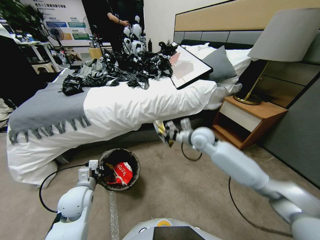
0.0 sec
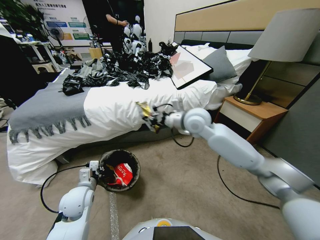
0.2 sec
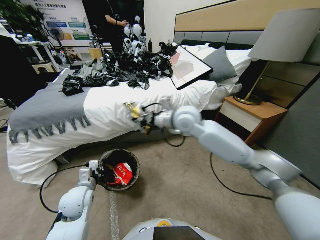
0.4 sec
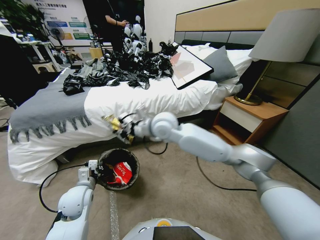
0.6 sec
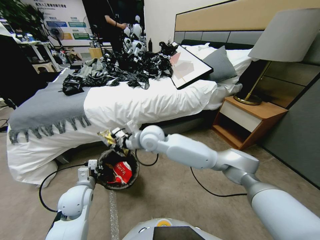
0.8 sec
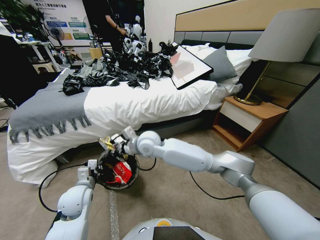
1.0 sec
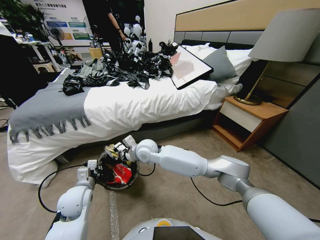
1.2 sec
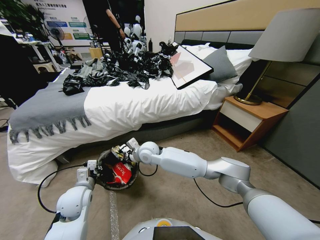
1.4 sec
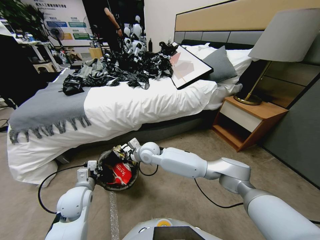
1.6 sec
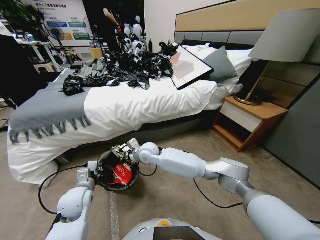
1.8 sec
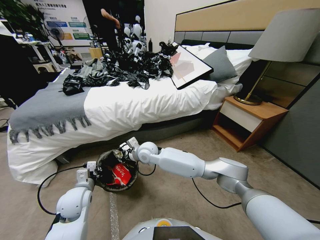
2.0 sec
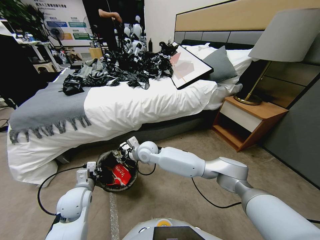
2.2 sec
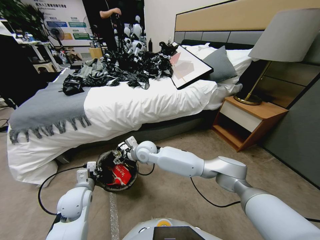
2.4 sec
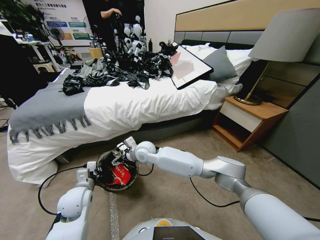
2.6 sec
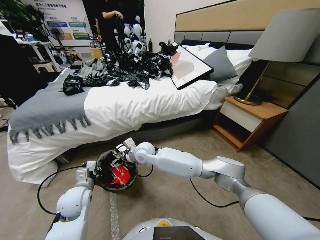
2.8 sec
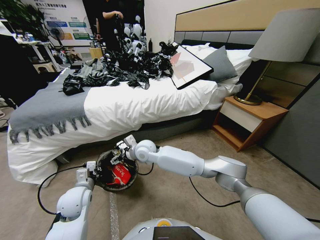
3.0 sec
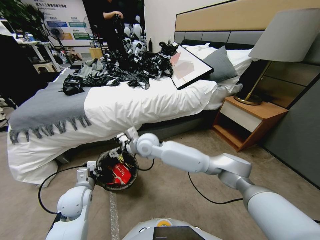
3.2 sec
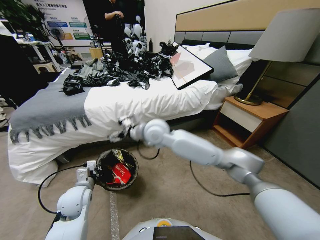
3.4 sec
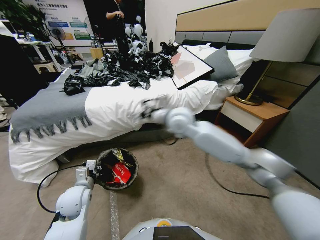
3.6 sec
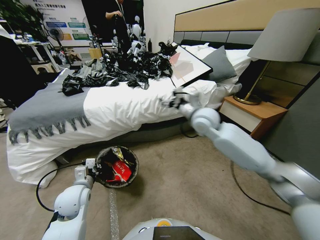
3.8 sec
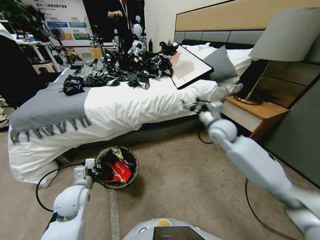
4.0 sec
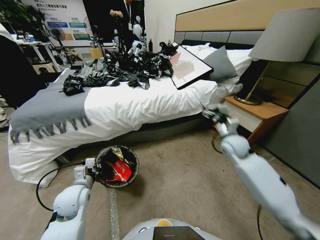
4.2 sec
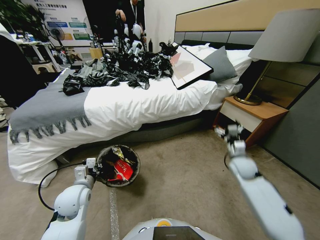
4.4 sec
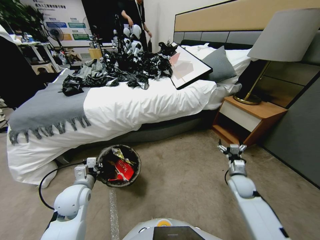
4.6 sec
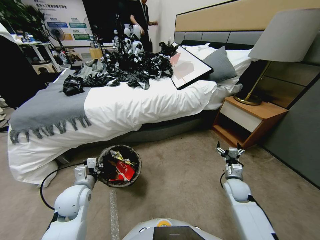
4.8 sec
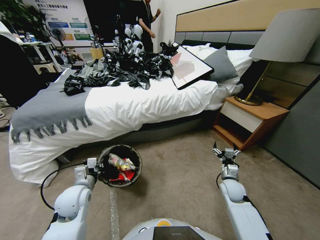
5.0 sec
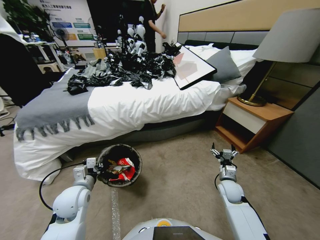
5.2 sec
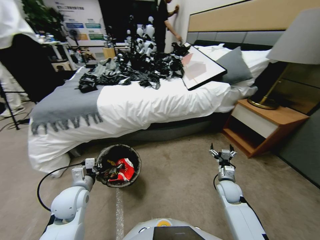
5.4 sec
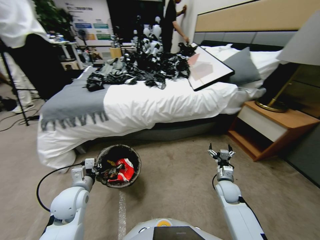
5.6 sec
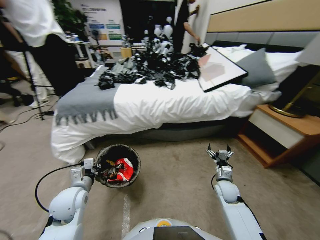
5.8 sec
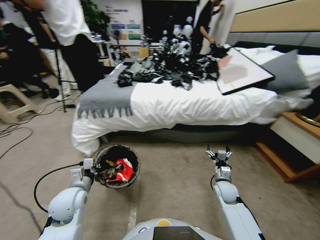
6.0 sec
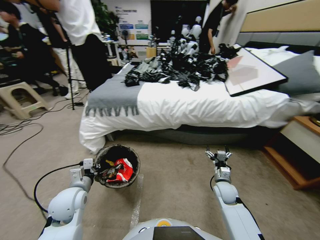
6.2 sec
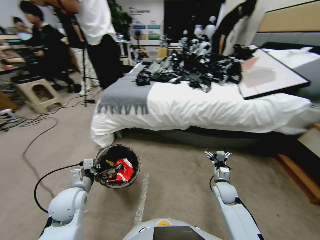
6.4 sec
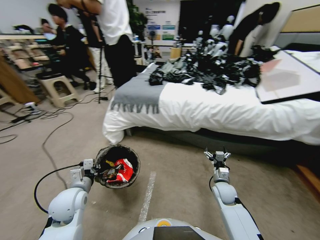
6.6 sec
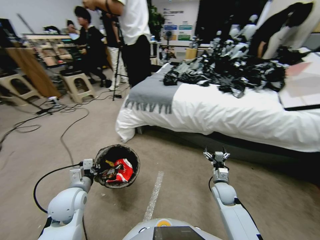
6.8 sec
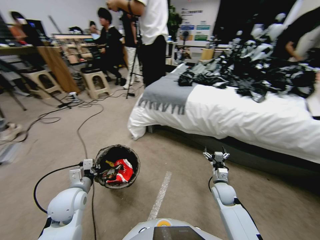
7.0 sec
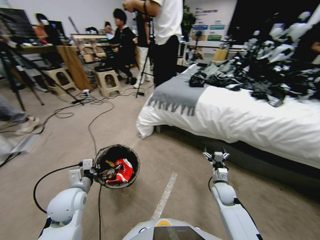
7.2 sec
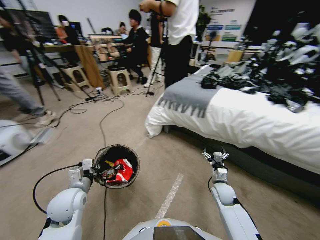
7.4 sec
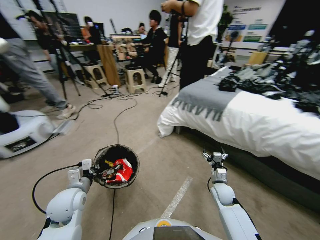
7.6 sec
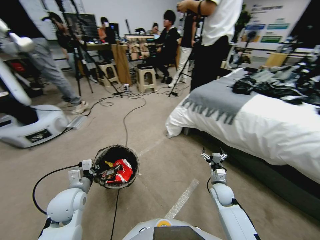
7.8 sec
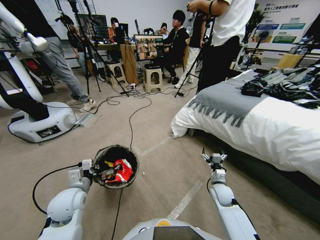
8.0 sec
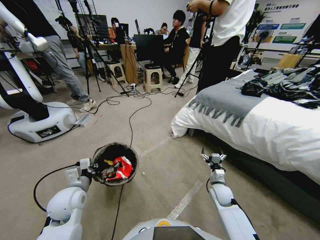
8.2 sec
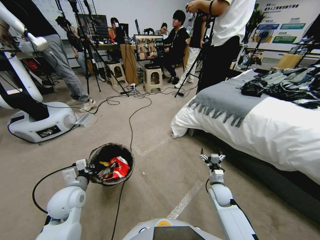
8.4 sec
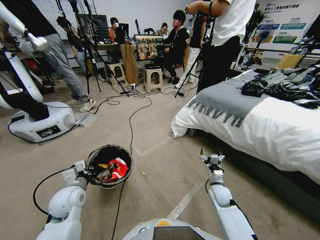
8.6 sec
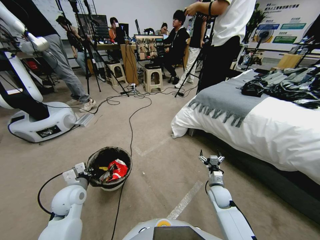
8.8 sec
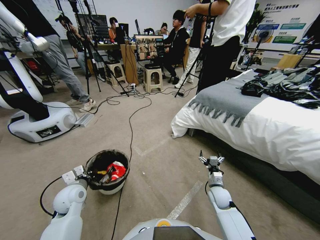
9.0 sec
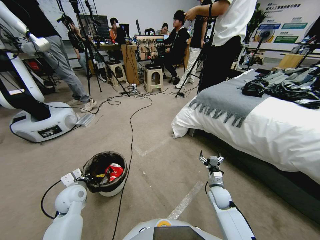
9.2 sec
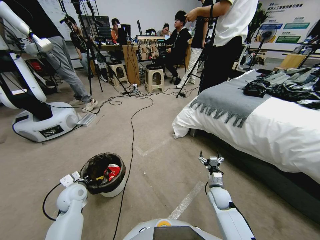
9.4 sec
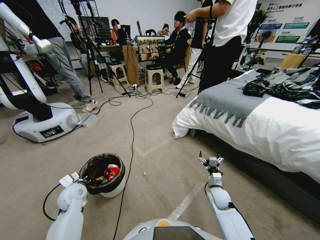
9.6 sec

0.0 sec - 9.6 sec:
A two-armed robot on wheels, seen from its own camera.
Task of the whole recording: Pick up the trash bin, then pick up the garbage from the floor and place it into the trash bin.
0.0 sec - 1.6 sec: The right gripper shifts about 25 cm to the left and downward.
1.6 sec - 3.2 sec: The right gripper moves upward, about 10 cm, and opens up.
3.2 sec - 4.8 sec: The right gripper goes about 40 cm to the right and downward.
8.0 sec - 9.6 sec: The left gripper shifts some 10 cm downward and to the left.

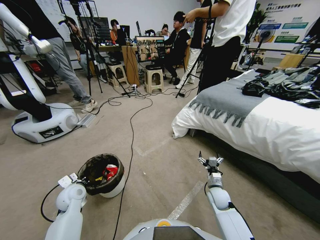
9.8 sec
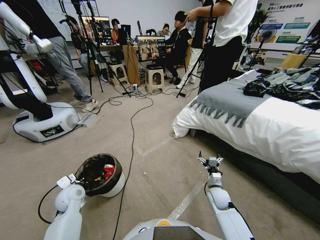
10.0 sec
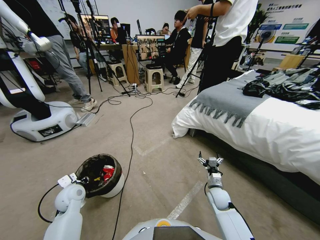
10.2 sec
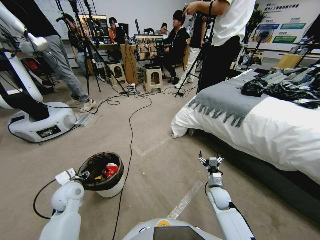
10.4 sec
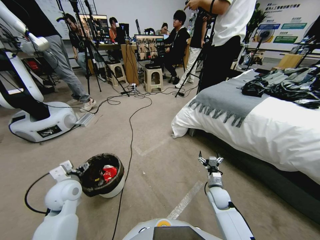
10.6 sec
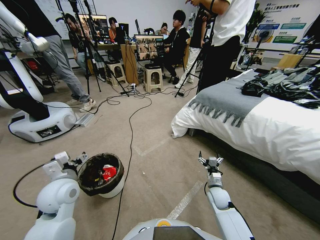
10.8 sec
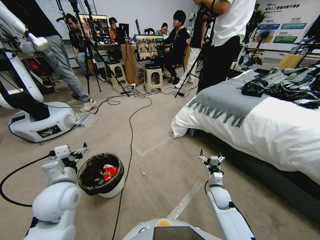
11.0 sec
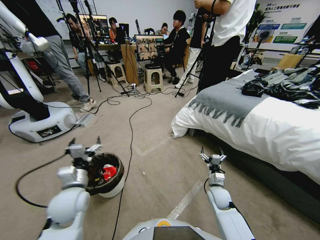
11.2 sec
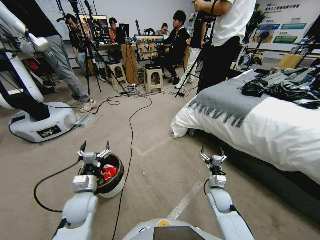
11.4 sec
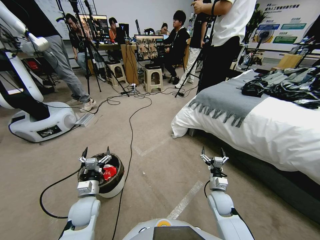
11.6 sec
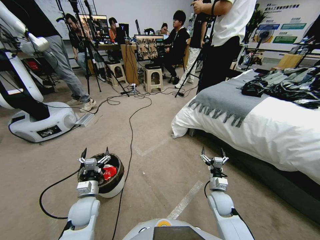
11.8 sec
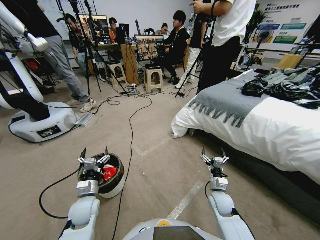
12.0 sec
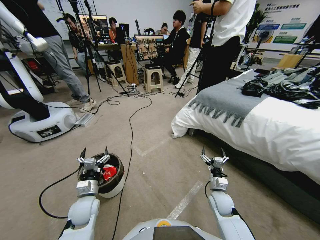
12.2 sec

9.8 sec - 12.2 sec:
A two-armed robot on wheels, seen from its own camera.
Task of the whole recording: Pick up the trash bin, then pick up the garbage from the floor and place it into the trash bin.
9.8 sec - 11.0 sec: The left gripper goes approximately 15 cm upward and to the right, and opens.
11.0 sec - 12.2 sec: The left gripper moves downward, approximately 10 cm.
